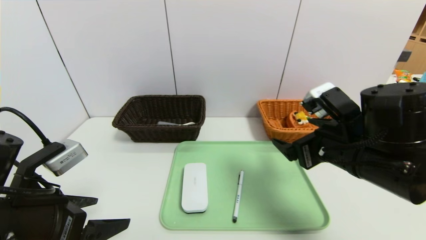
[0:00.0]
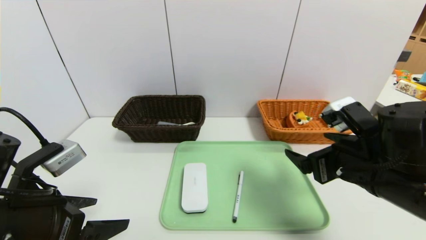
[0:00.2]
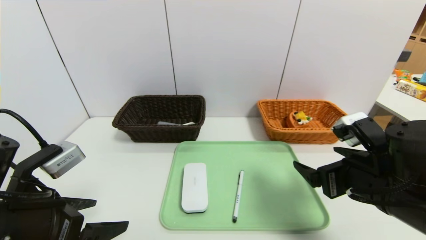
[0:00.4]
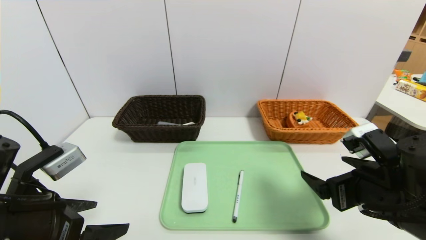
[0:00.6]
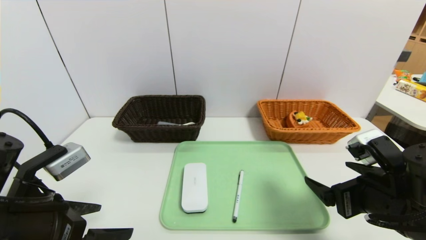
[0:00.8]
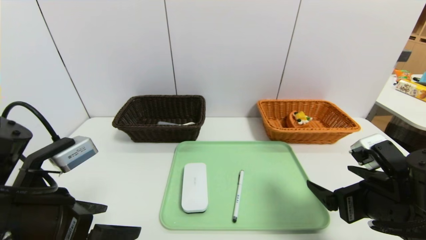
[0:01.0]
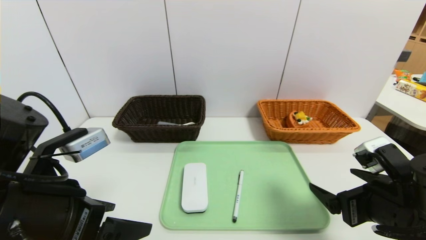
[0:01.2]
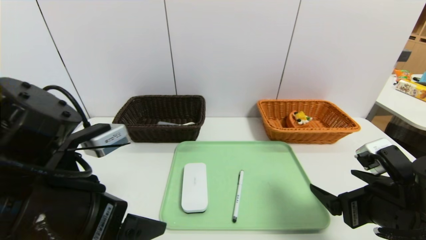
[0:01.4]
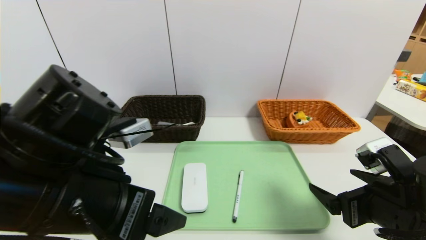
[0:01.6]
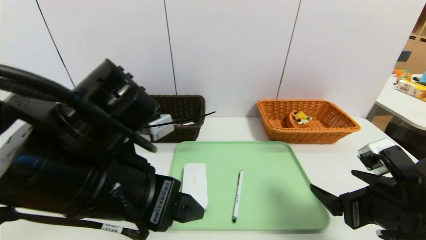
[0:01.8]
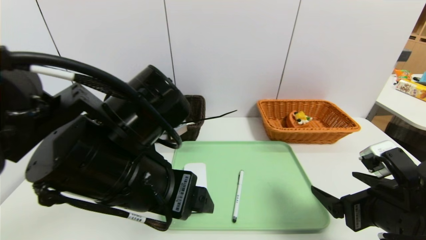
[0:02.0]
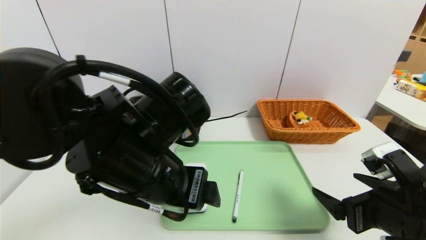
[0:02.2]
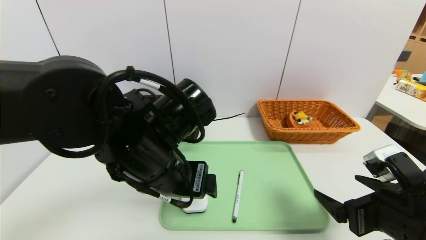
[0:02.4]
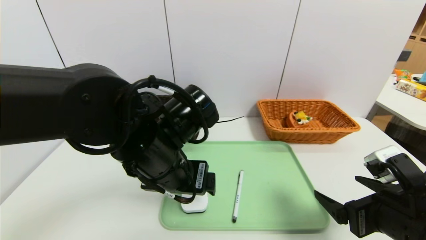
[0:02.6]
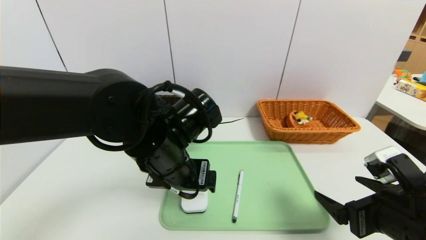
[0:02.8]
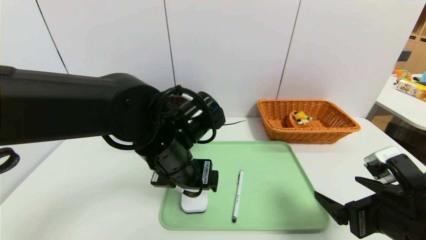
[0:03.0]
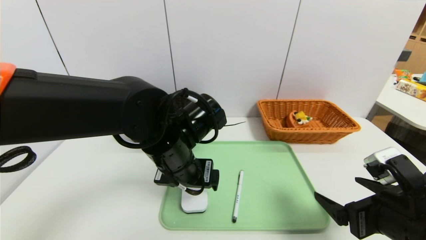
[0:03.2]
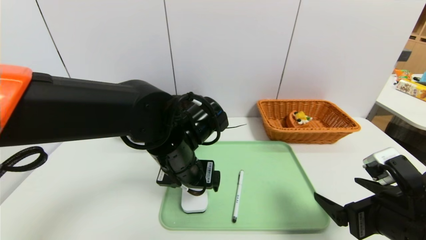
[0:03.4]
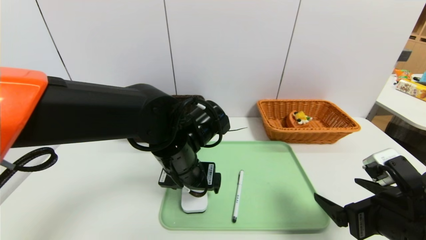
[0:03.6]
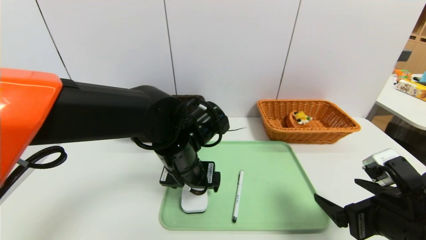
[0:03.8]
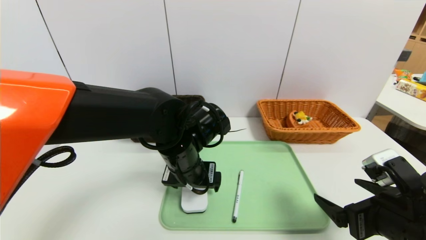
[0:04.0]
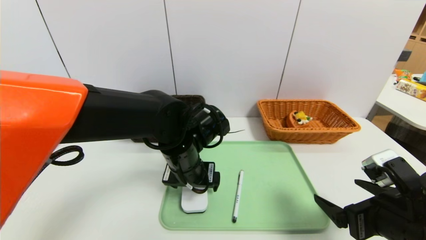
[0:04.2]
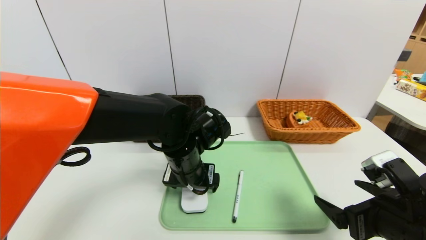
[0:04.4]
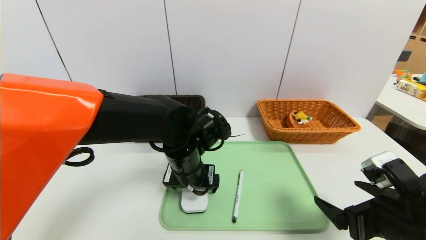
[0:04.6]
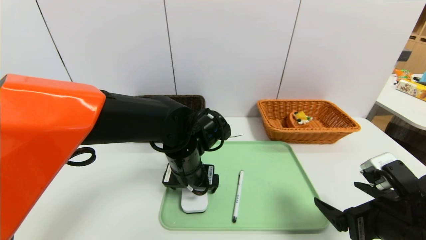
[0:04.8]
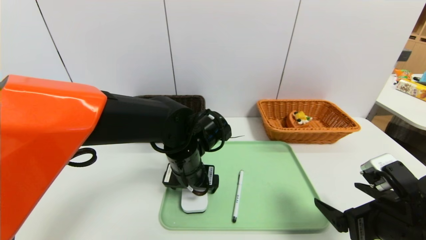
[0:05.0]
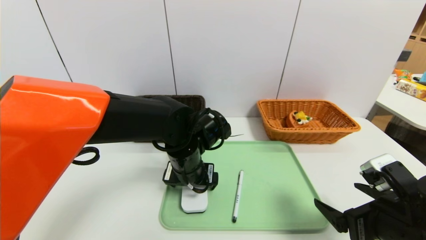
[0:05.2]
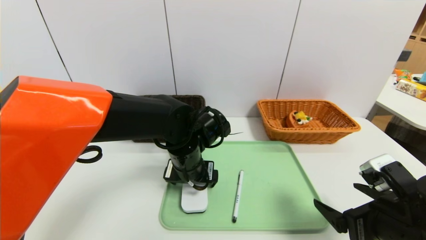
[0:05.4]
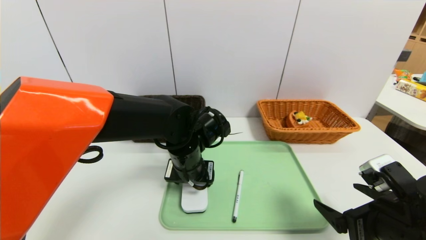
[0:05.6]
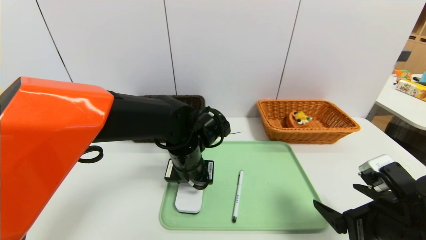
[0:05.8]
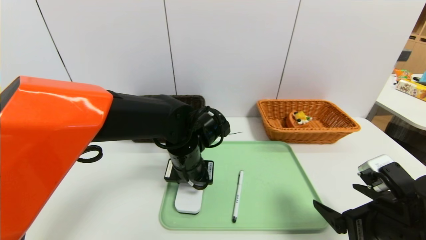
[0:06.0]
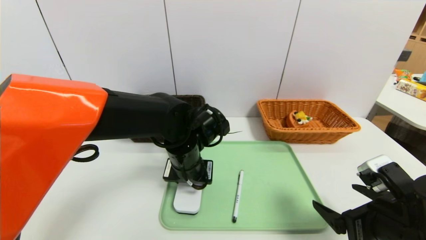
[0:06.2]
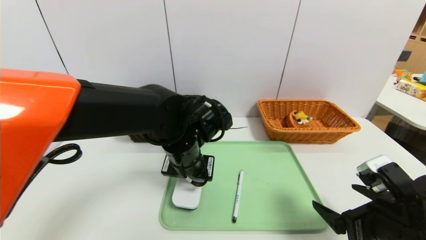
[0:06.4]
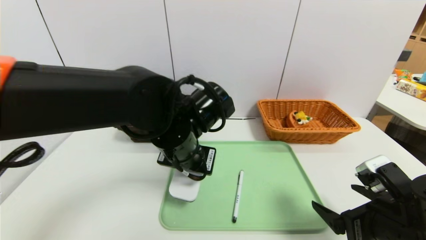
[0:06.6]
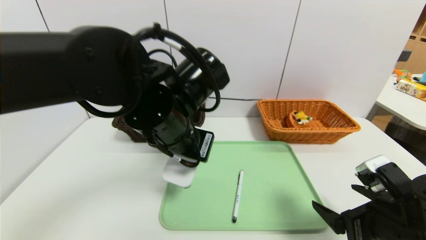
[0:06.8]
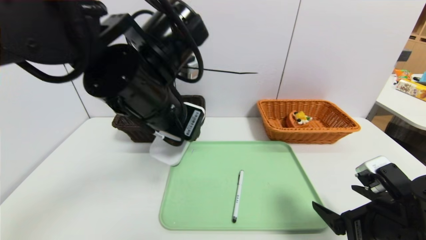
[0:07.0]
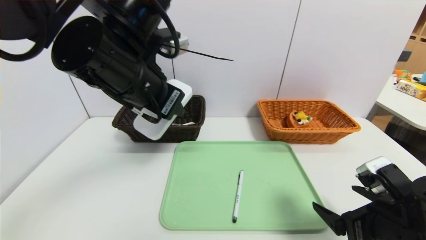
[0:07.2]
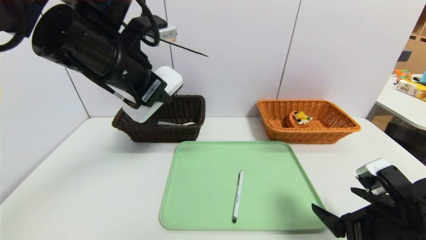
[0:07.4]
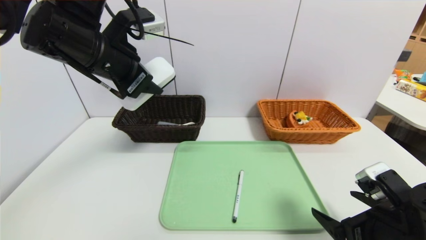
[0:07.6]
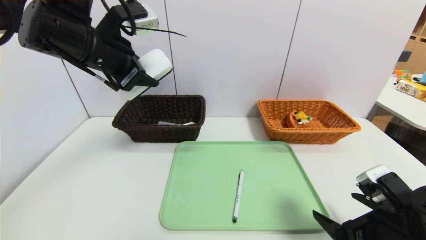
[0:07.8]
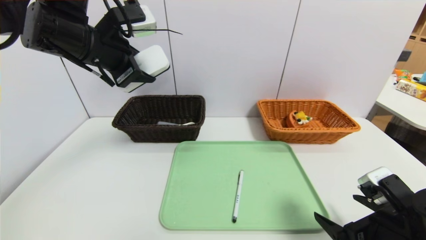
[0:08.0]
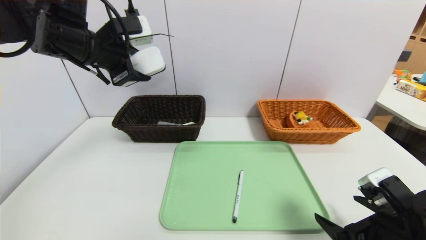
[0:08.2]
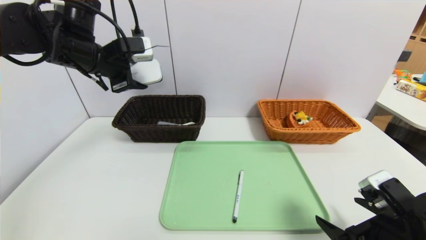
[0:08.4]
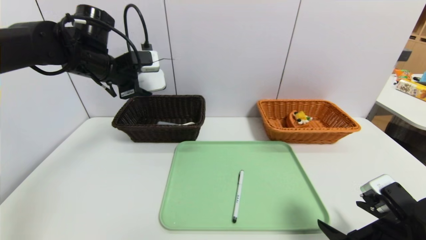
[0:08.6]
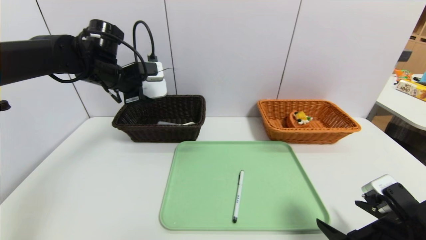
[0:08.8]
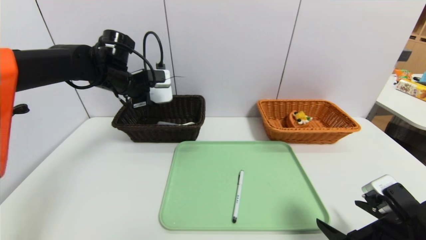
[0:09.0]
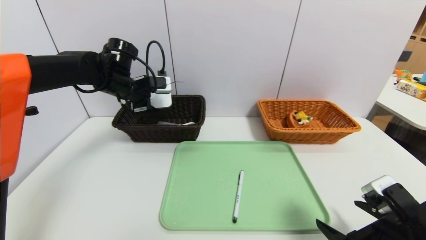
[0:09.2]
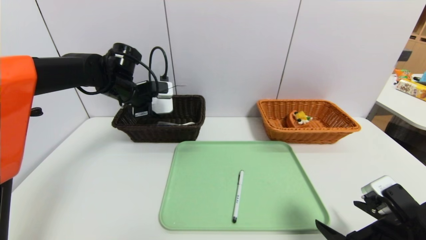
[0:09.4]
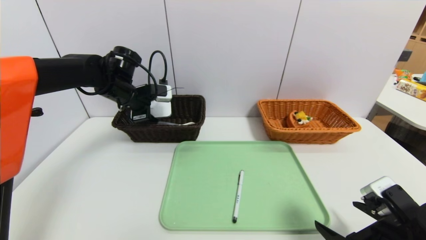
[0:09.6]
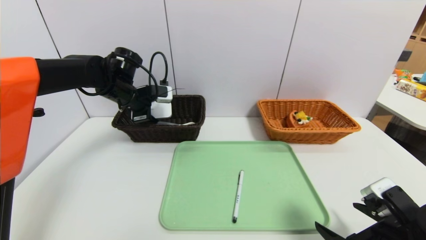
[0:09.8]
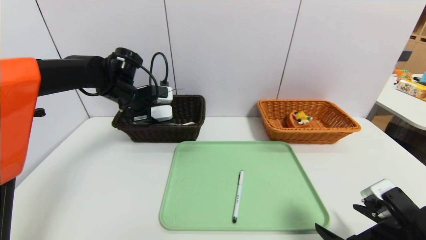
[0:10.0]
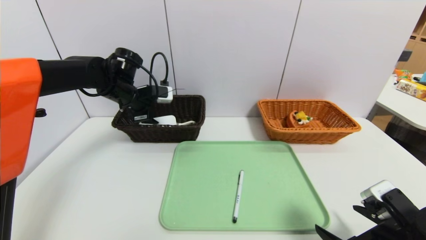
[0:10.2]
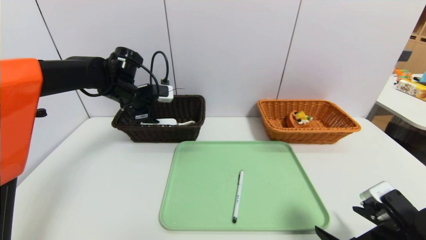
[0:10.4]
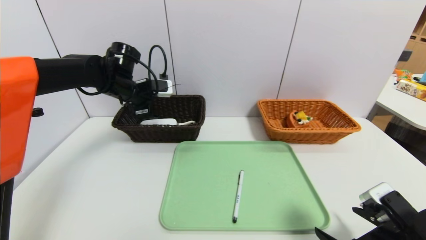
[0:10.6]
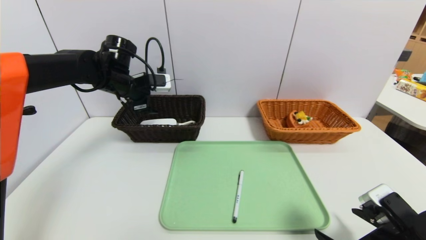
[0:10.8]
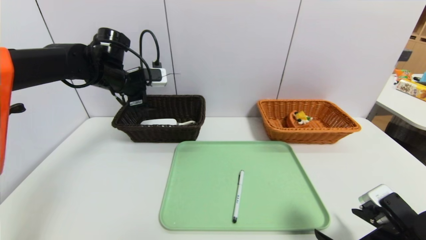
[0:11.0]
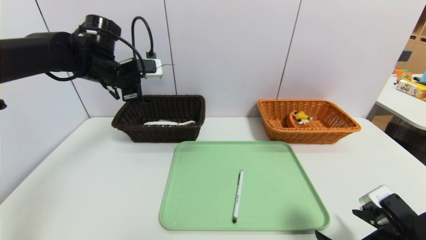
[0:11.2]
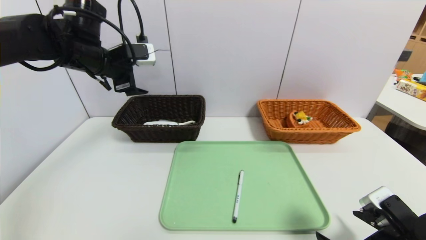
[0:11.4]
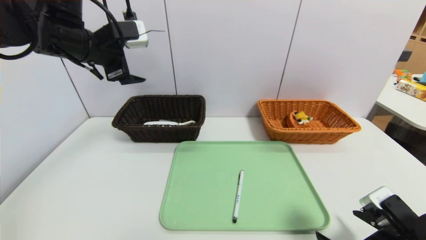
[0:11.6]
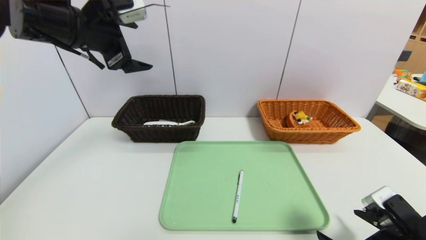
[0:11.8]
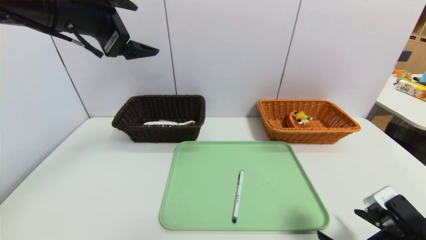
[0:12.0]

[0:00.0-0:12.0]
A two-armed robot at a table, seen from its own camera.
Task of the whole recording: place the food in the right basket with the right gripper, and place the non food items in the left basket with the left gripper.
Step, 0:00.0 to 0:10.6: Grasp the white eraser and put it in the left basket.
0:00.0 to 0:01.6: The left gripper shifts approximately 10 cm to the right and upward. The right gripper moves backward, downward and to the right, about 10 cm.
0:01.6 to 0:03.0: The left gripper is displaced forward, to the right and downward by some 15 cm.
0:03.0 to 0:04.4: The left gripper ends up some 5 cm from where it was.
0:04.4 to 0:06.0: The left gripper closes its fingers.
0:06.0 to 0:07.6: The left gripper is displaced upward and to the left by about 25 cm.
0:07.6 to 0:09.0: The left gripper goes roughly 15 cm forward and downward.
0:09.0 to 0:10.4: There are only small adjustments of the grippers.
0:10.4 to 0:12.0: The left gripper travels upward and backward by roughly 25 cm.

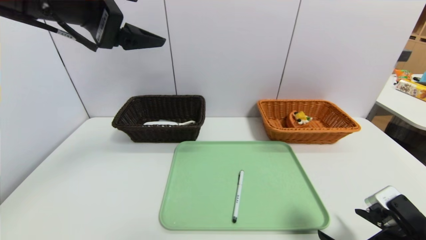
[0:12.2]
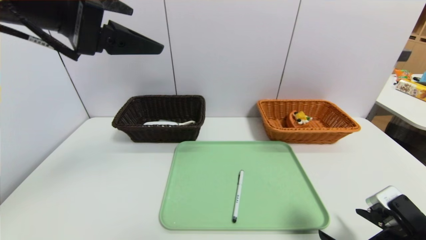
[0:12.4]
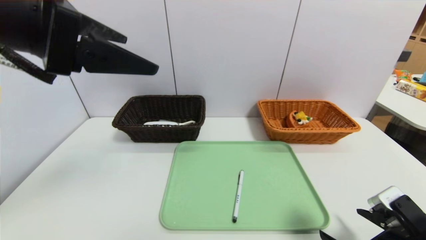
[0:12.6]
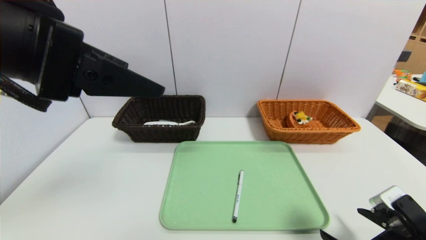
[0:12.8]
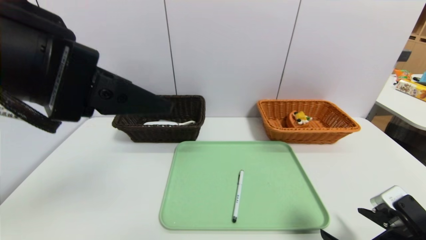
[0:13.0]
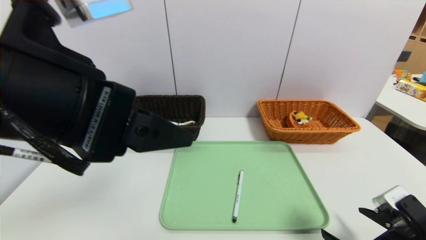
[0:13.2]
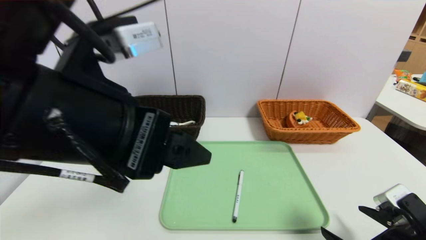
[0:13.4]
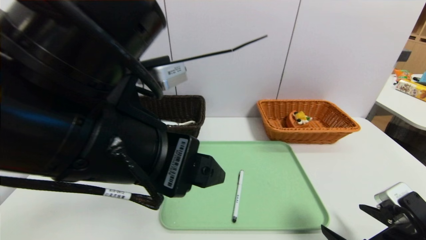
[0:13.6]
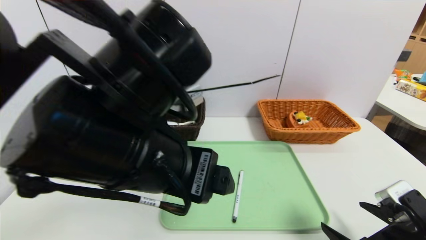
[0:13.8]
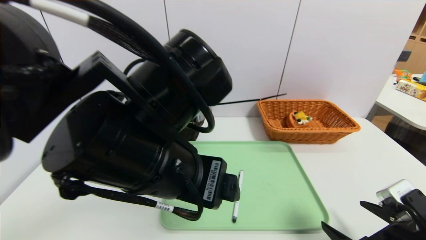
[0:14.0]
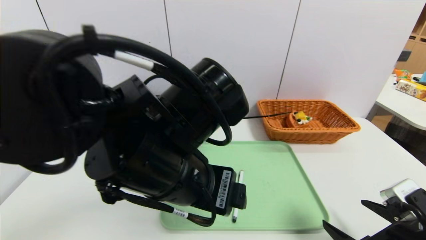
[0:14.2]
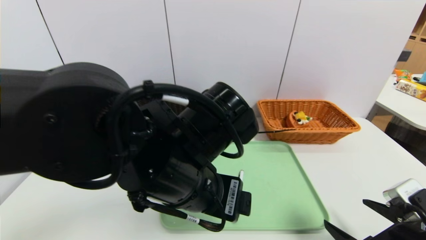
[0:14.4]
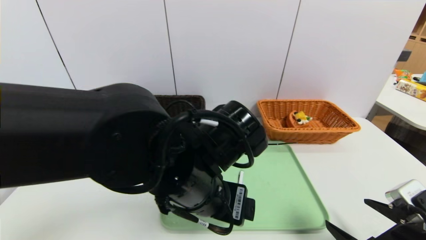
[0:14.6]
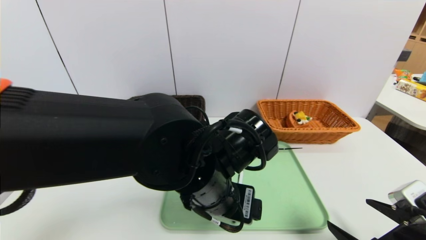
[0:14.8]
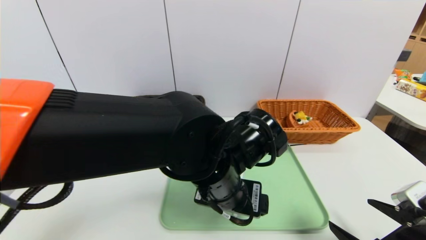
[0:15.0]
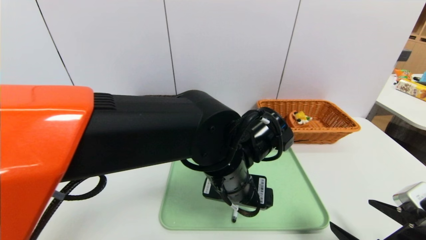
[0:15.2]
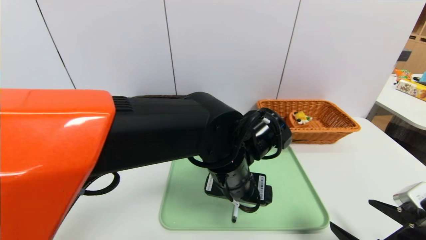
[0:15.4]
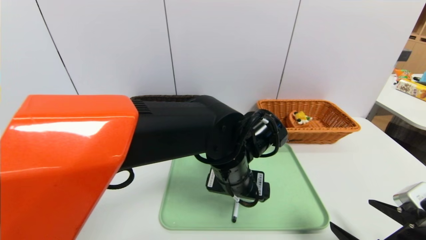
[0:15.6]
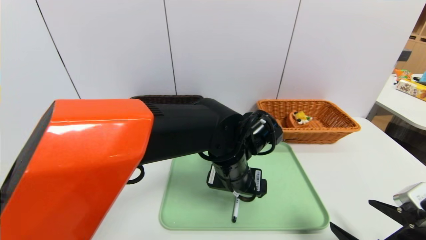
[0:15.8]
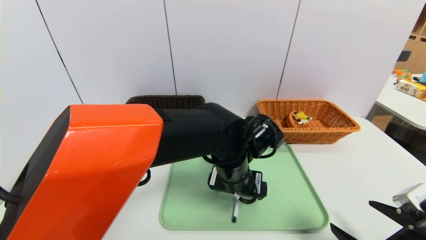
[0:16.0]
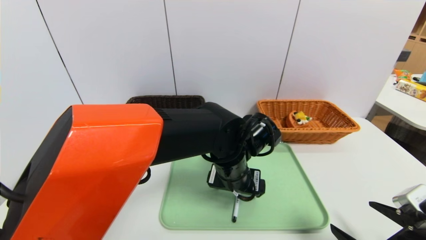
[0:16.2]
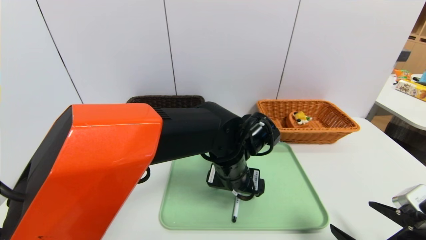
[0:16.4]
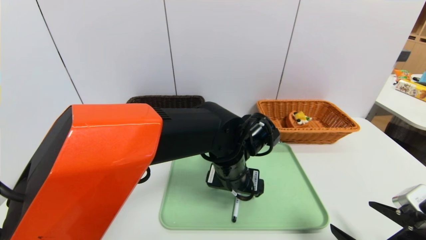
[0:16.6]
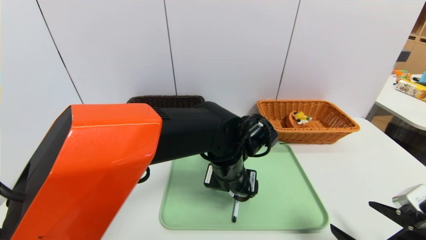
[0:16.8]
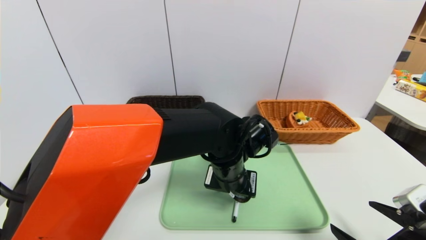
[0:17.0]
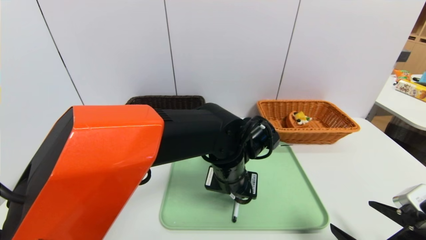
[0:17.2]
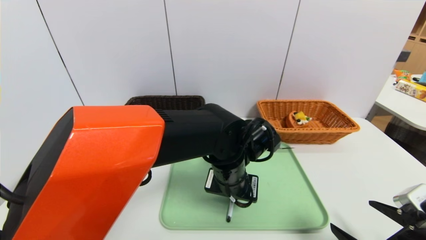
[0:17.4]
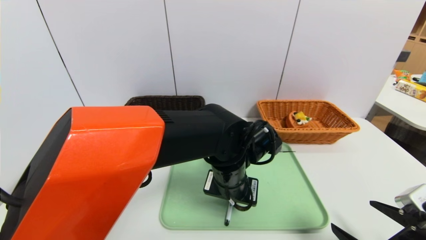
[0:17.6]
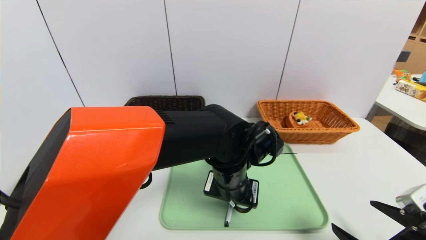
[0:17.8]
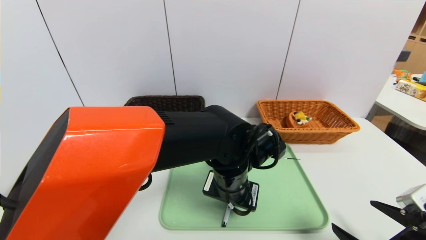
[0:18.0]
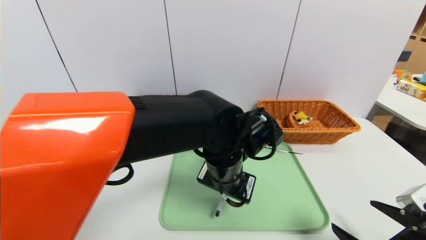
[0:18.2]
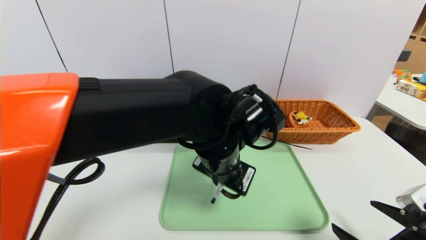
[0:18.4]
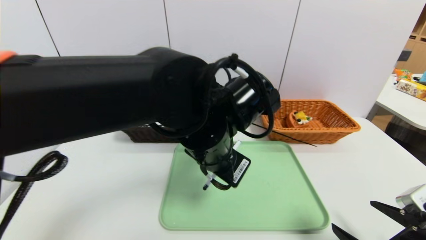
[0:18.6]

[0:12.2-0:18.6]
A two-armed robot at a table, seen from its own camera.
Task of the whole recording: place the food in the right basket with the right gripper, and place the non food items in the left basket with the left gripper.
0:12.2 to 0:13.8: The left gripper moves downward, to the right and backward, some 20 cm.
0:13.8 to 0:15.4: The left gripper moves downward, to the right and forward, approximately 20 cm.
0:15.4 to 0:17.0: The left gripper shifts by some 5 cm, and closes.
0:17.0 to 0:18.6: The left gripper moves upward, roughly 10 cm, and closes its fingers.
